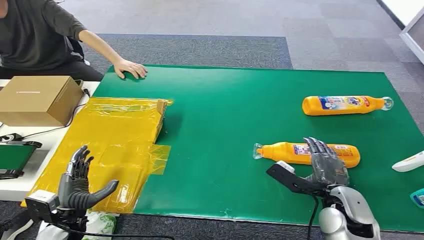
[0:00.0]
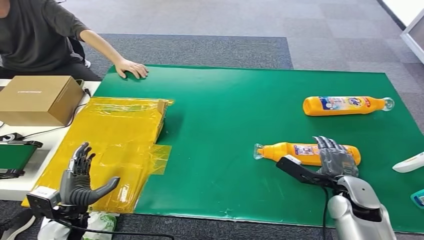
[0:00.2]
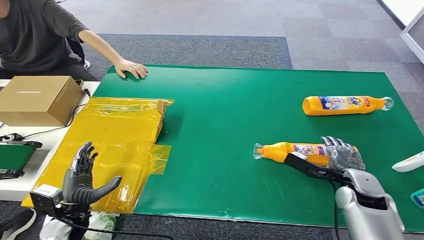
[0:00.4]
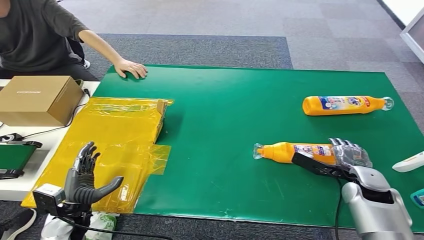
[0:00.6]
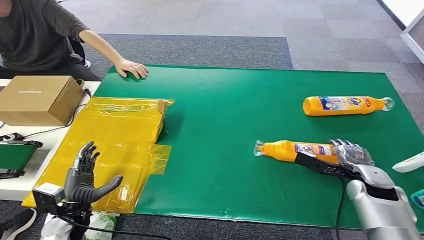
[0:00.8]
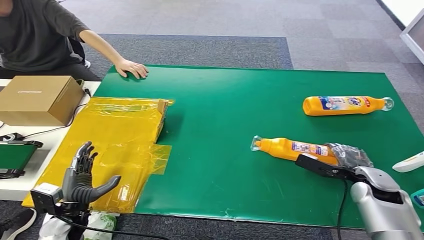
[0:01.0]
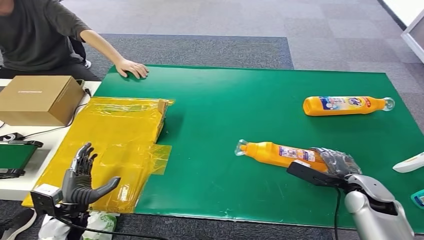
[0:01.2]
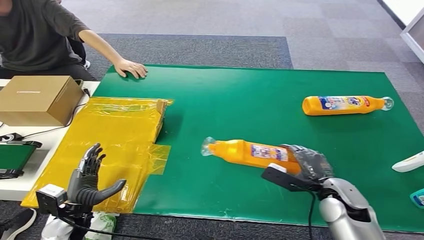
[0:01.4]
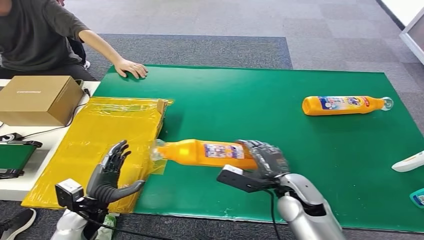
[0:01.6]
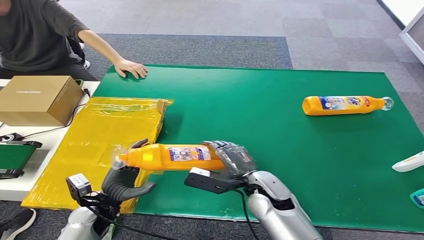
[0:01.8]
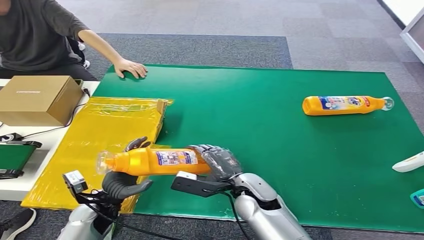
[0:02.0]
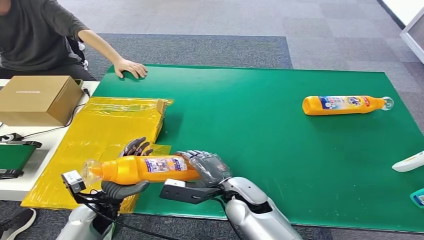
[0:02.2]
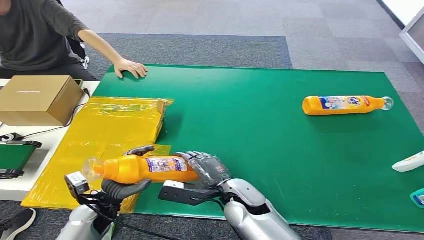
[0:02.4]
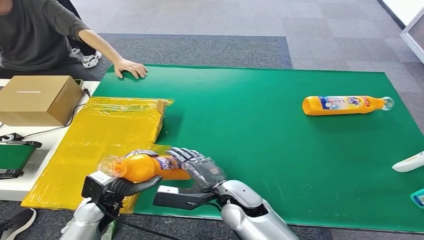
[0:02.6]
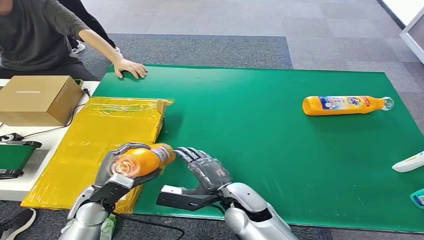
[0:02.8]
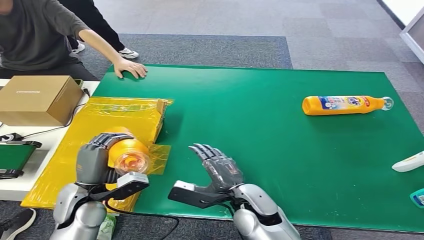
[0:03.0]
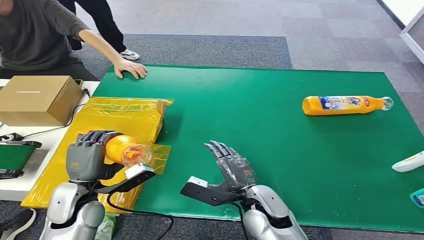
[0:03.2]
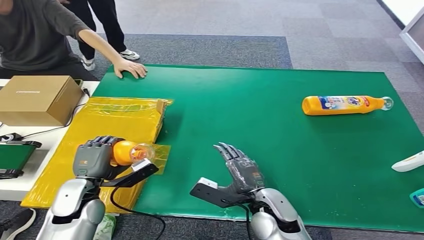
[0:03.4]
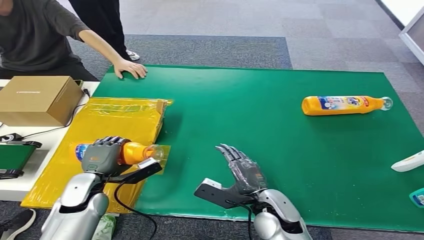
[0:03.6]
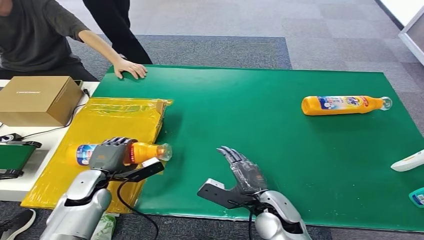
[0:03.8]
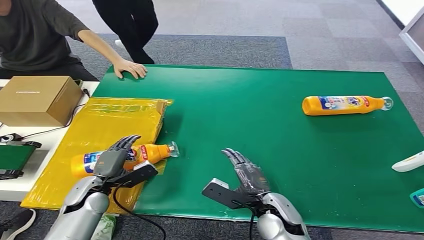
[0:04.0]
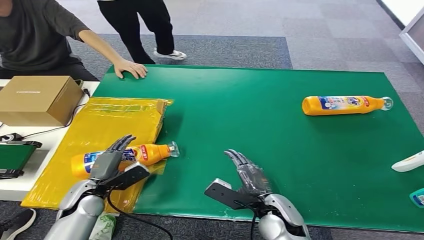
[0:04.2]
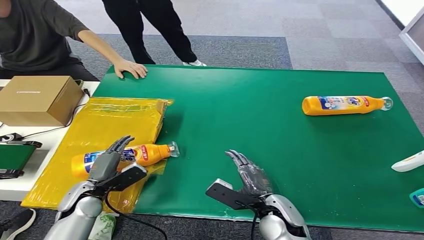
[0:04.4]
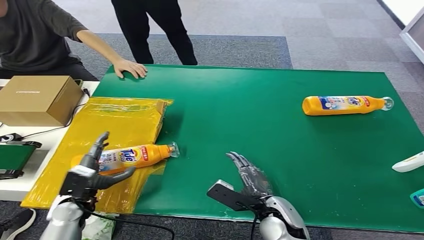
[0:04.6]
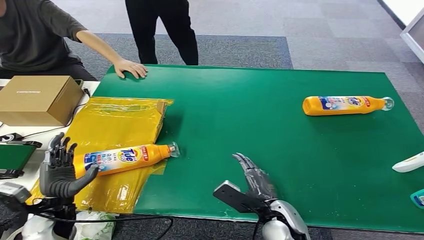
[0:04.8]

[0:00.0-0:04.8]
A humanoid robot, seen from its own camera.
Step, 0:00.0 to 0:01.2: Pick up the bottle from the table.
Step, 0:01.6 to 0:04.8: Turn the bottle to the front side.
0:01.6 to 0:03.2: The left hand travels upward by roughly 10 cm. Meanwhile the right hand shifts some 10 cm to the left.
